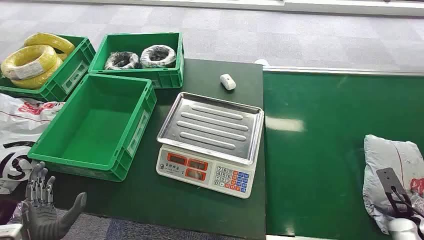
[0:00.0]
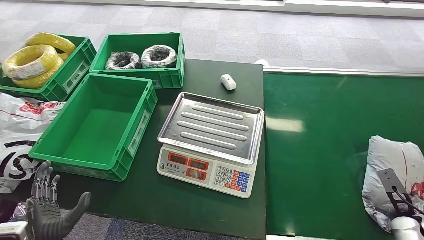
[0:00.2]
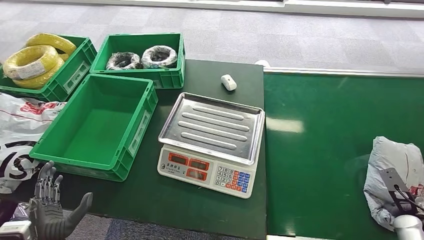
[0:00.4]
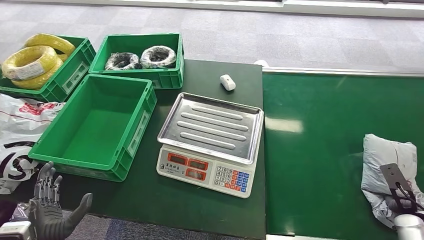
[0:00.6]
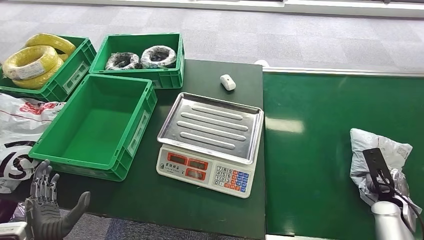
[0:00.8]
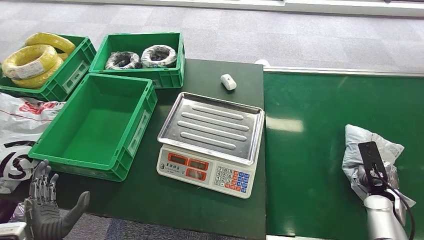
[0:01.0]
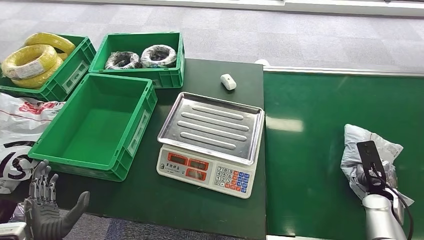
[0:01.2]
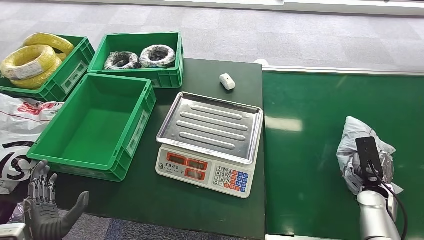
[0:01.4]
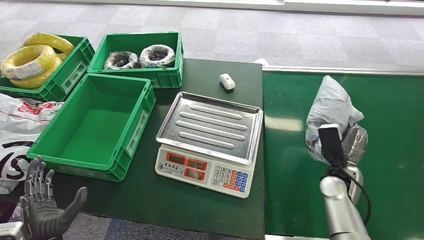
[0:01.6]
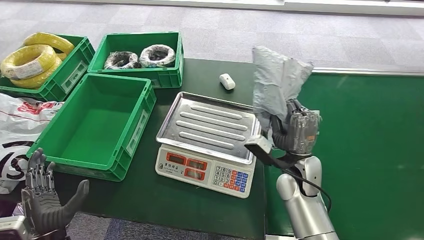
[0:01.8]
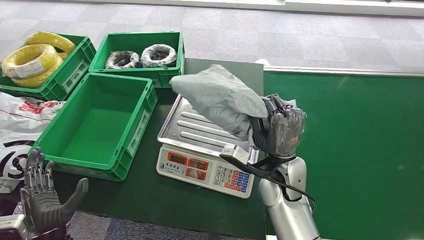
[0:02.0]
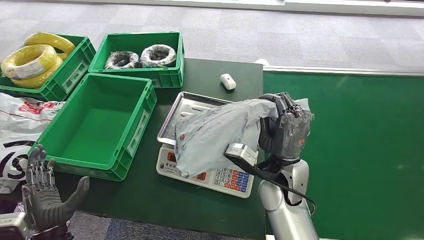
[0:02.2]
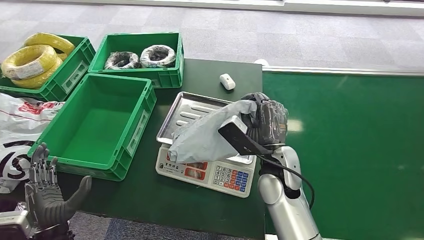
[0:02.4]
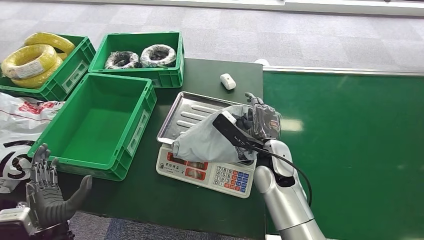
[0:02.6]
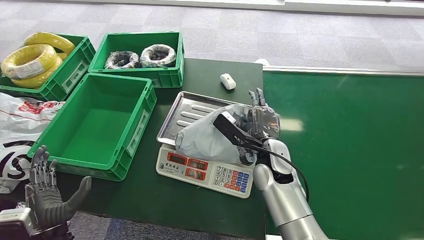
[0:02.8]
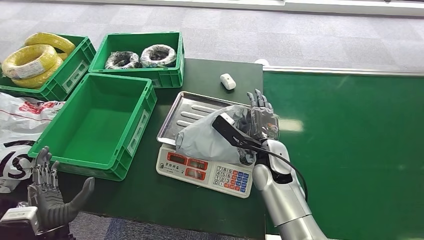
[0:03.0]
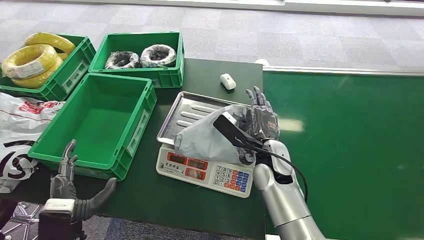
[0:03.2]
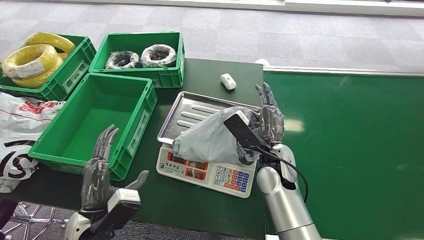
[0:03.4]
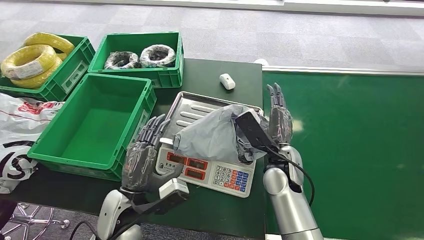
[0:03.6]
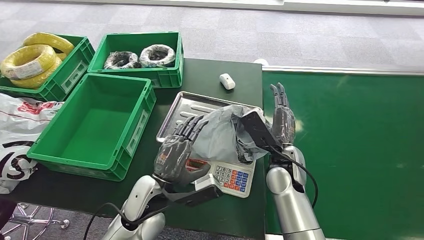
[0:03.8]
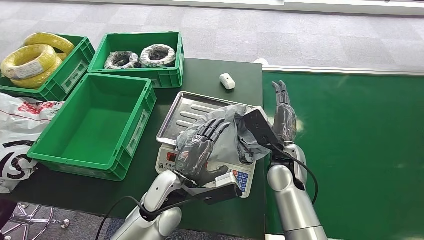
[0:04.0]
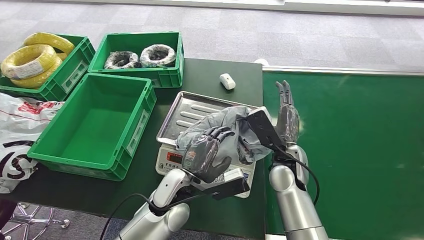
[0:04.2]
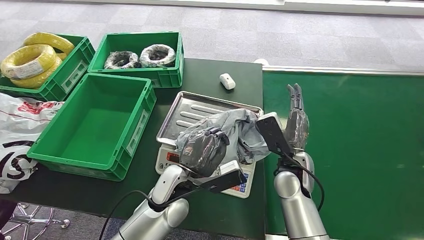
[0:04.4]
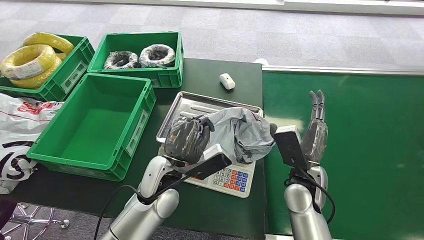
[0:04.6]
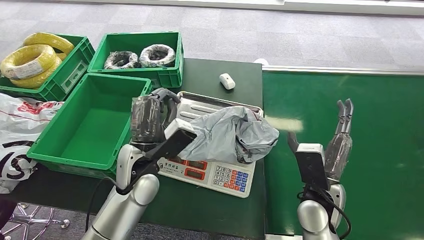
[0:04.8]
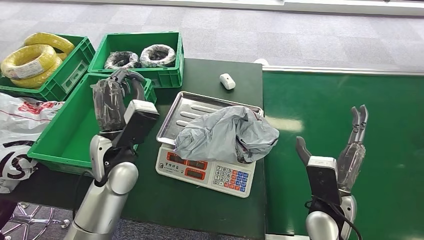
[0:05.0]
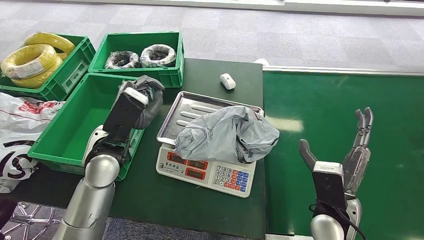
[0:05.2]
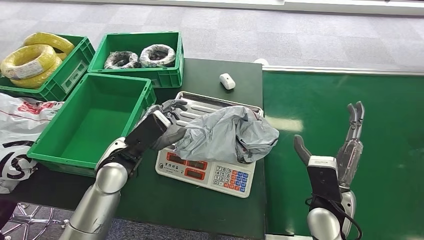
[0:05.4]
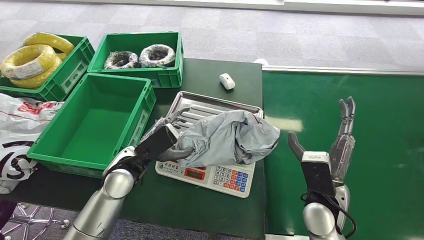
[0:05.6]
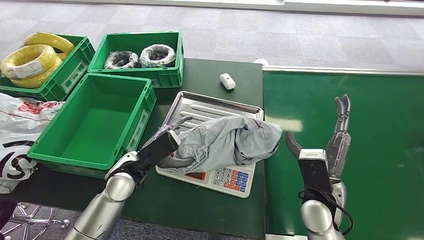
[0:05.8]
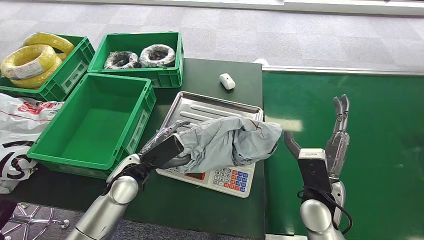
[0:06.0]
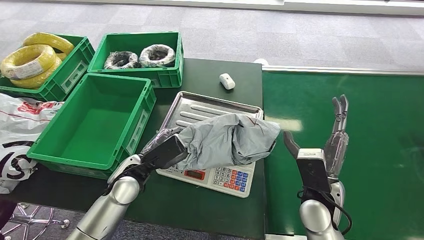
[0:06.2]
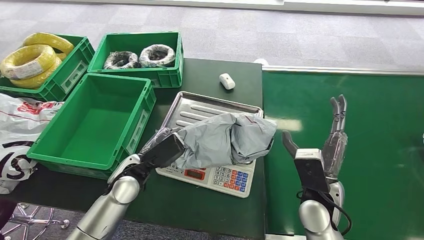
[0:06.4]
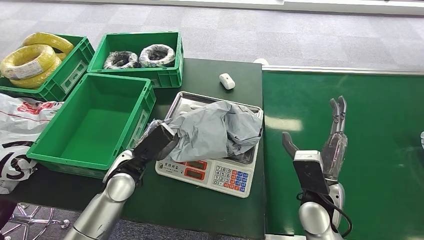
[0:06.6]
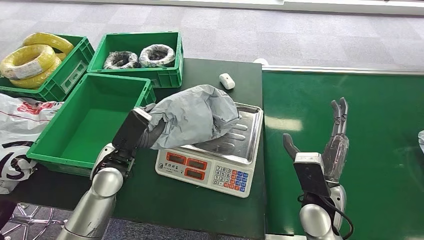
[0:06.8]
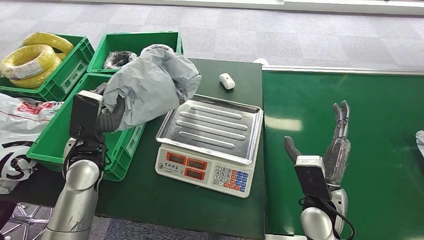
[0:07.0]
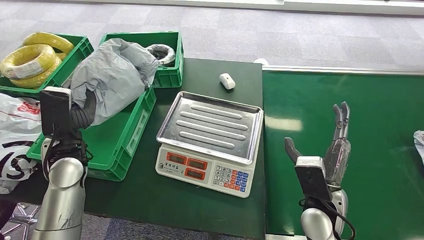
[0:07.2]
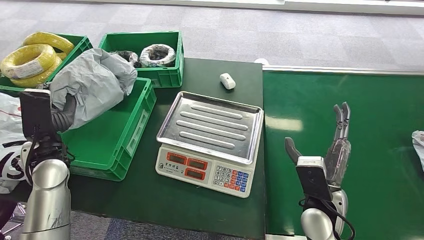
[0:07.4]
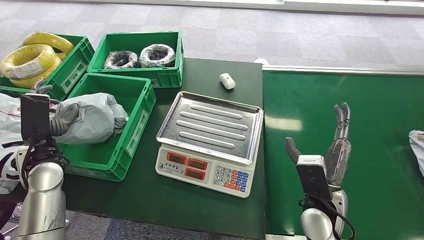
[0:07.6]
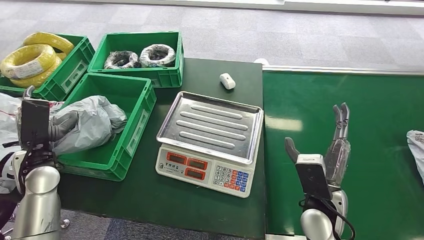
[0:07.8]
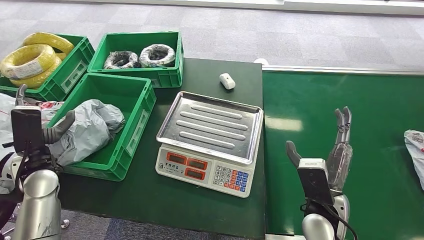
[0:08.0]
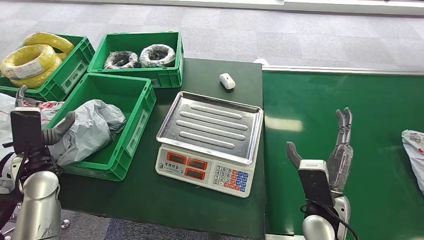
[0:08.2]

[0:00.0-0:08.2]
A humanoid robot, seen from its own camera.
Step, 0:00.0 to 0:02.2: Pick up the package from the conveyor belt.
Step, 0:02.4 to 0:03.6: Place the package onto the inbound machine.
Step, 0:03.8 to 0:07.0: Pick up the package from the inbound machine.
Step, 0:07.4 to 0:08.2: Place the package into the parcel locker.
0:05.0 to 0:06.6: The left hand moves downward, some 10 cm.
0:06.6 to 0:08.2: The left hand is displaced to the left by roughly 20 cm.

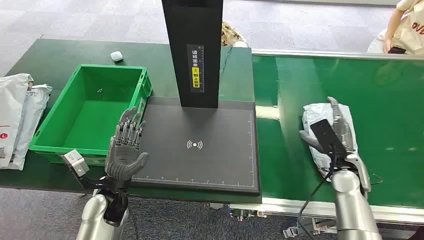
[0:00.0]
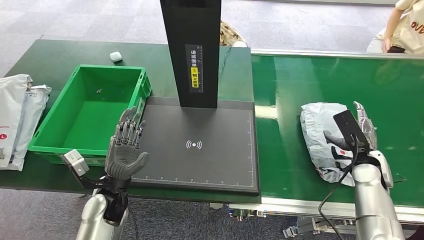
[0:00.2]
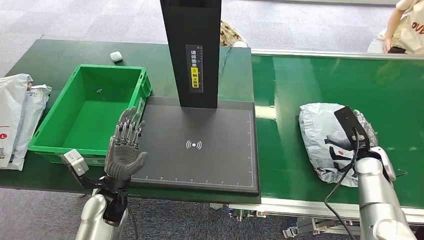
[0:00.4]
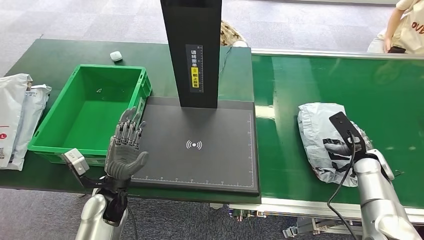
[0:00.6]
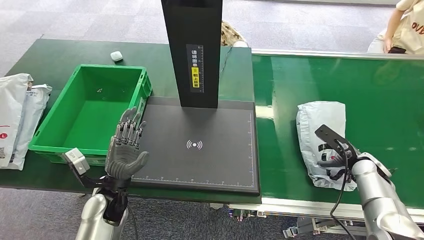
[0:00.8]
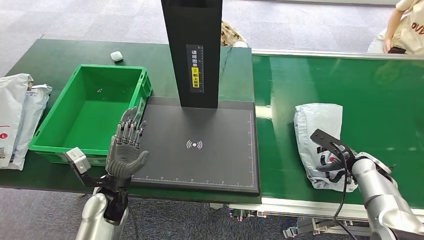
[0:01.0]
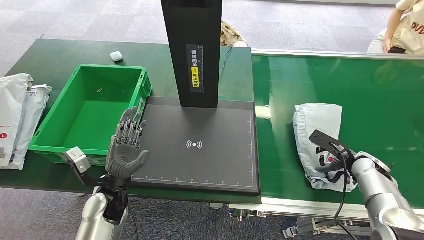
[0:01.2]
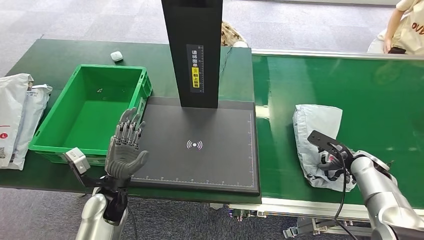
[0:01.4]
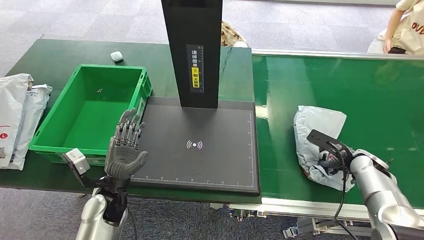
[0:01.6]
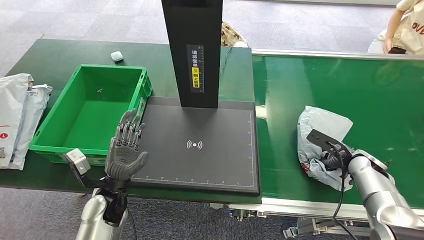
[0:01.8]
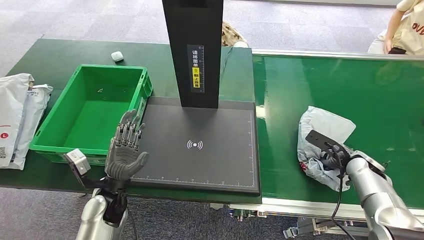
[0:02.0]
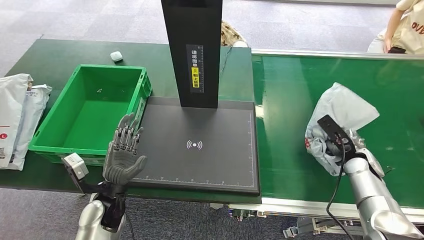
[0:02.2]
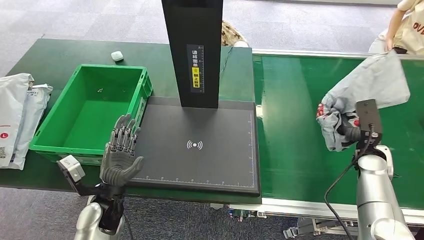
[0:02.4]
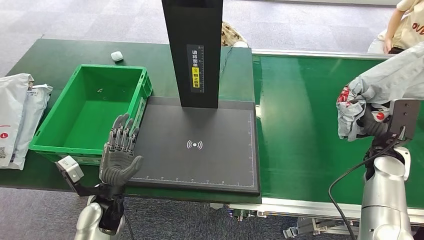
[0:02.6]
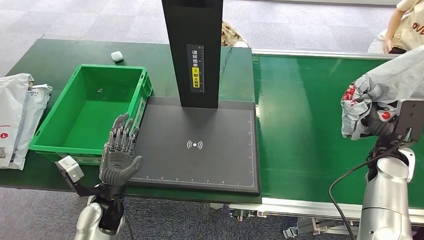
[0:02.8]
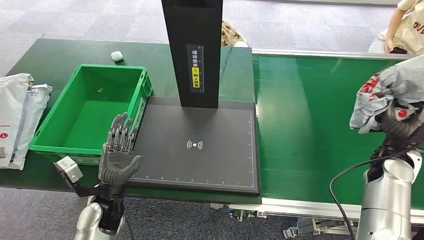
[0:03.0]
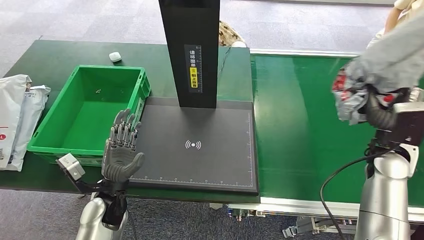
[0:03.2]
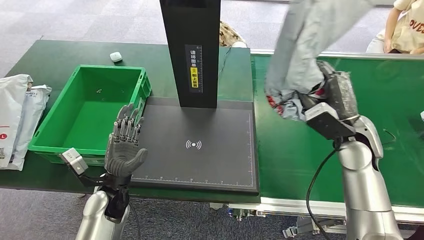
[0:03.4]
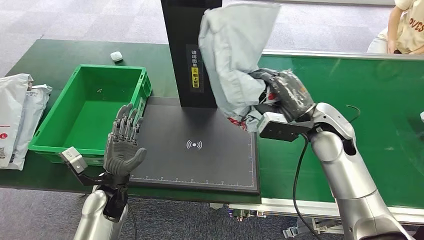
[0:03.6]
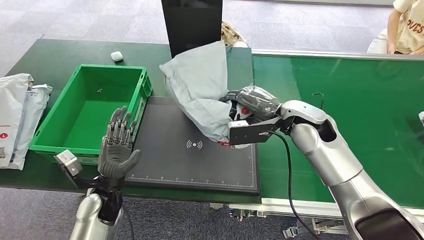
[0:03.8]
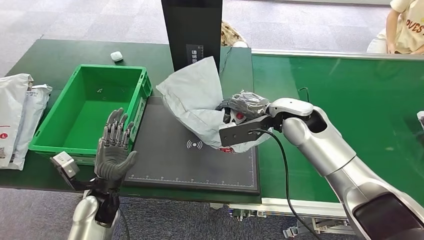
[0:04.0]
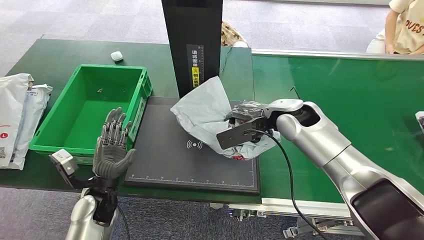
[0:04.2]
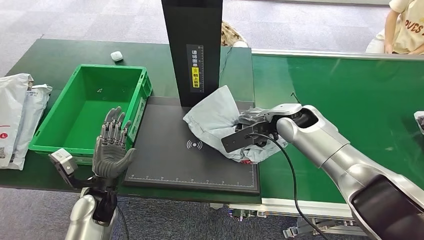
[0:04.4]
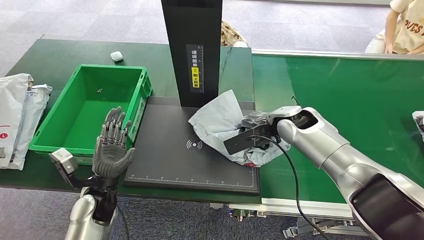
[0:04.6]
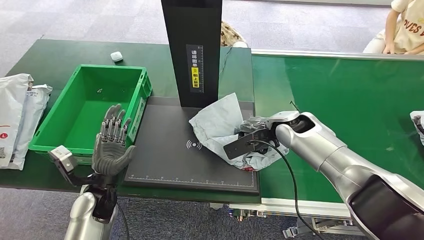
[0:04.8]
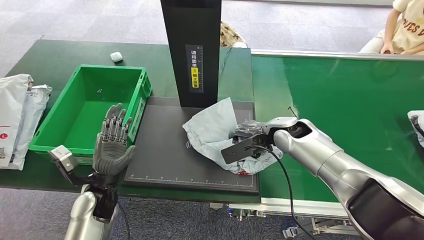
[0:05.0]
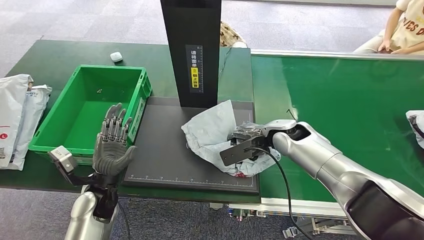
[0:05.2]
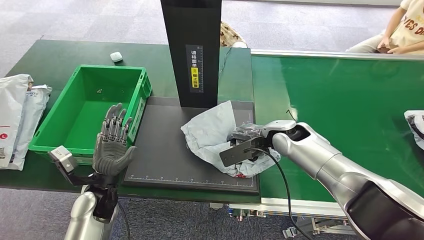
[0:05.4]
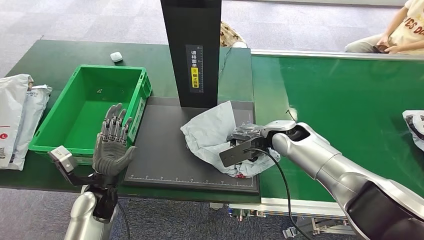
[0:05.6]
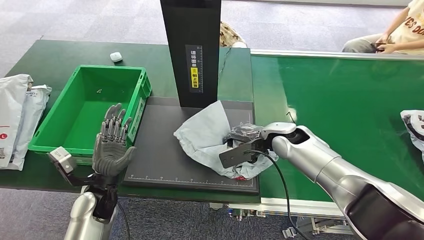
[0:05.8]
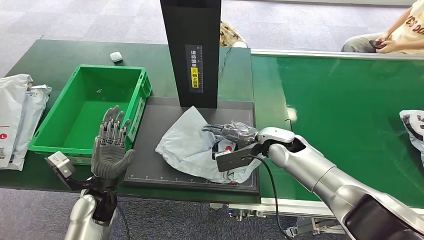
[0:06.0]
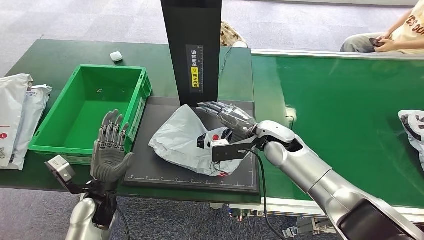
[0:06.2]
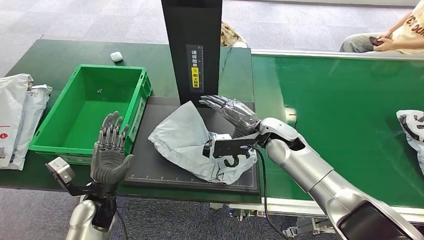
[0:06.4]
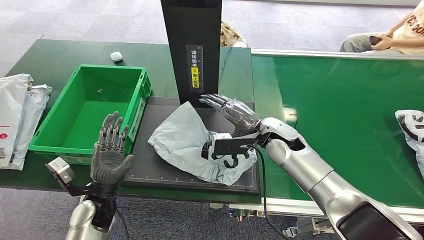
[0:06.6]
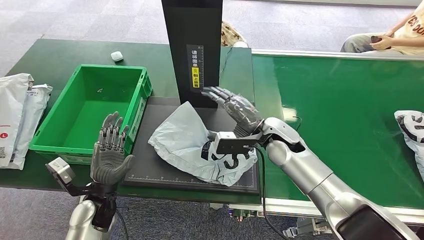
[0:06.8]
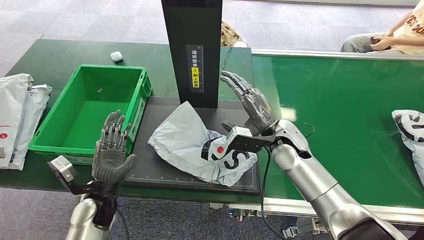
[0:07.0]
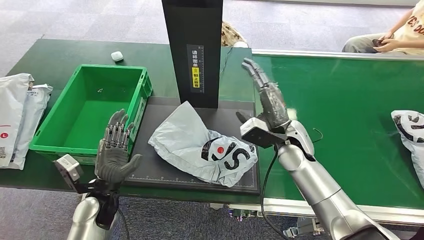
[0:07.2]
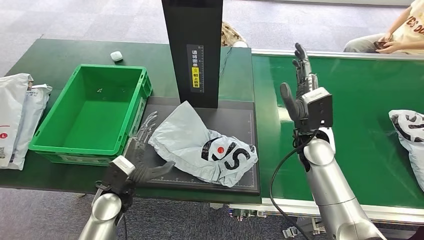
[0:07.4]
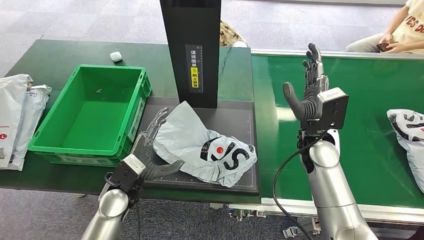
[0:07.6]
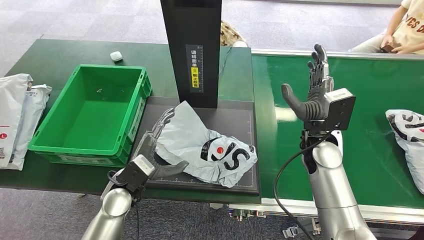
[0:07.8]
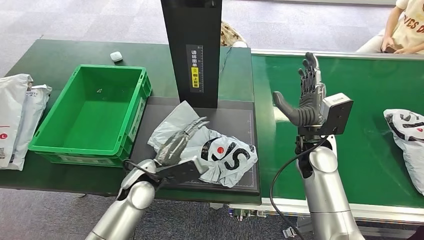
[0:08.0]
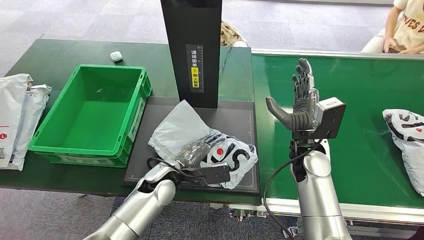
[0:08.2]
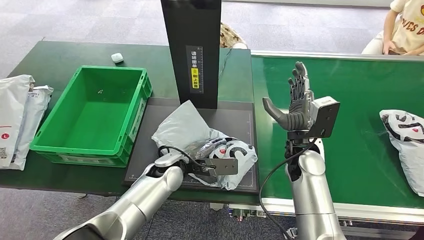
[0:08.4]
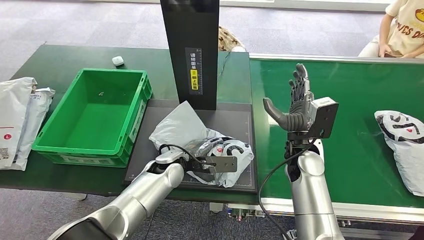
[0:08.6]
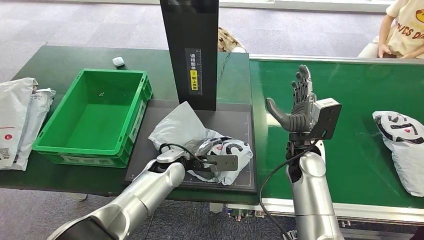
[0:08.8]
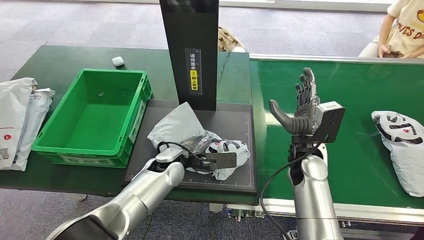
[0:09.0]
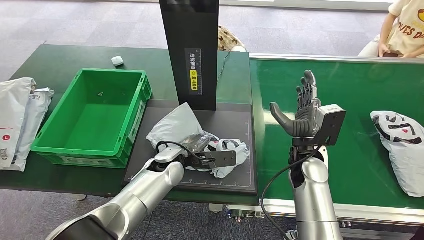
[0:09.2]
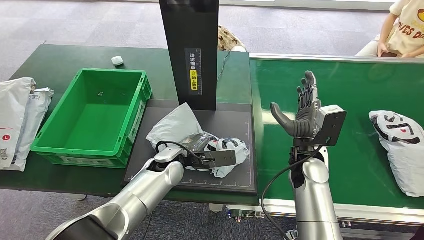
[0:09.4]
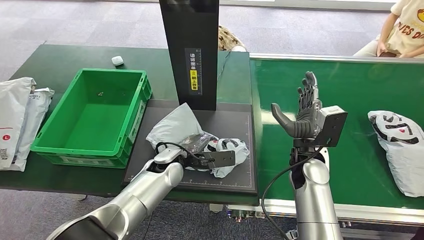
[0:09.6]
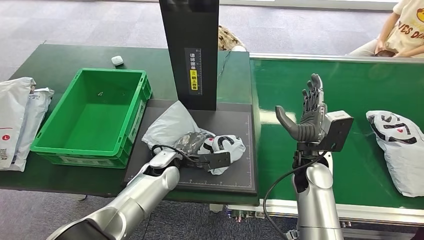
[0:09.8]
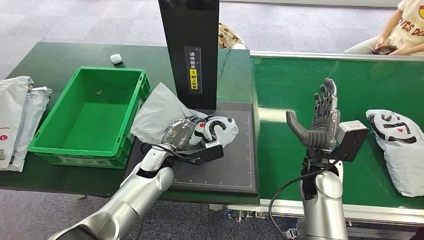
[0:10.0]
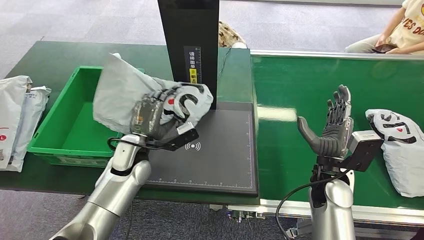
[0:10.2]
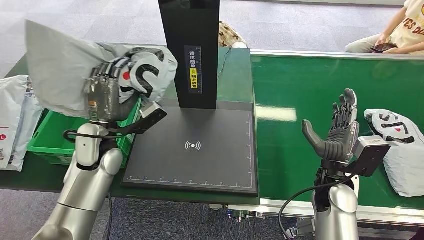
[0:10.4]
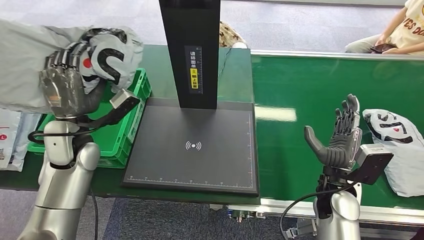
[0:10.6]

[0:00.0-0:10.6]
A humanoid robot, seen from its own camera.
Step, 0:00.0 to 0:02.2: Pick up the package from the conveyor belt.
Step, 0:02.6 to 0:07.2: Place the package onto the inbound machine.
Step, 0:07.8 to 0:10.2: Pick up the package from the inbound machine.
0:01.6 to 0:03.0: The right hand goes roughly 10 cm upward.
